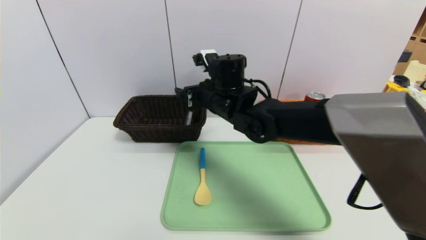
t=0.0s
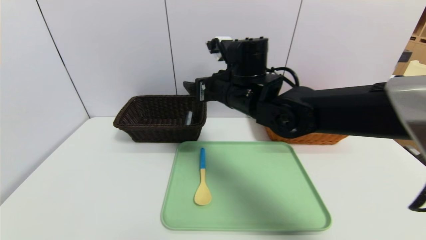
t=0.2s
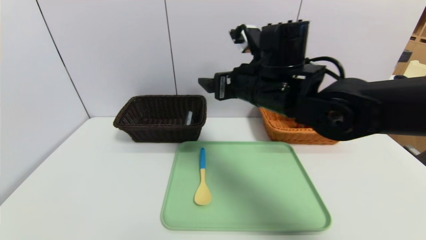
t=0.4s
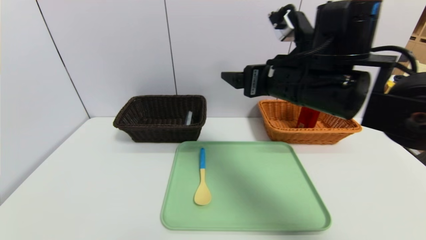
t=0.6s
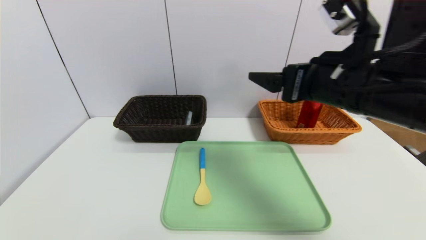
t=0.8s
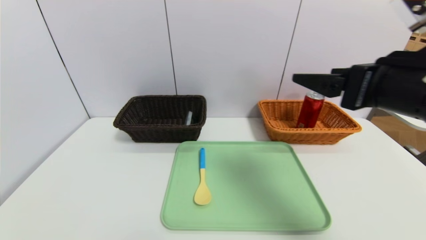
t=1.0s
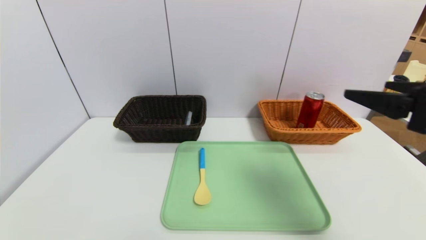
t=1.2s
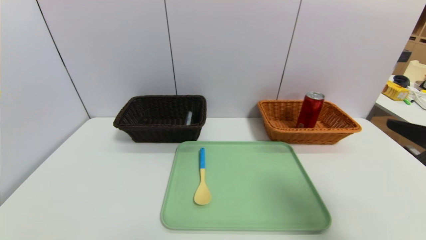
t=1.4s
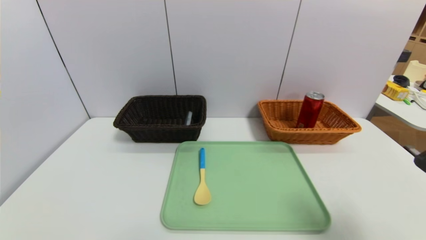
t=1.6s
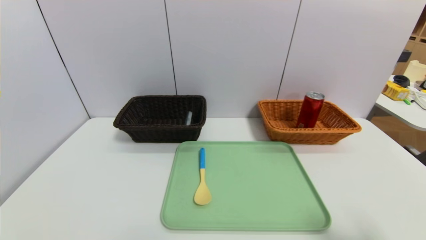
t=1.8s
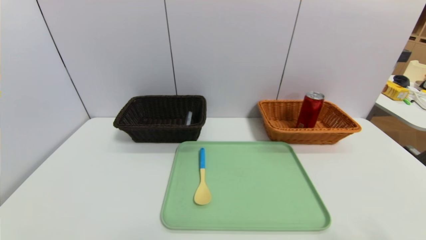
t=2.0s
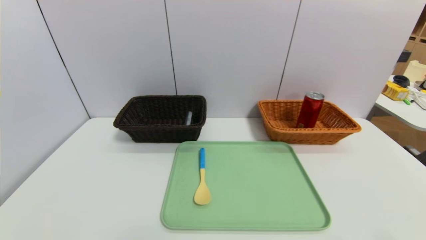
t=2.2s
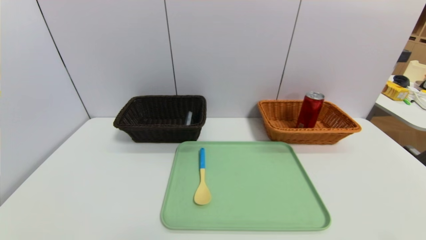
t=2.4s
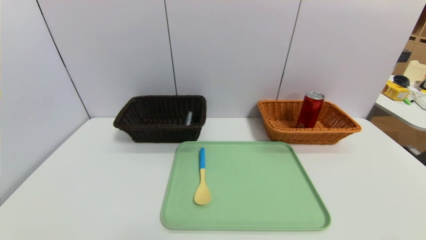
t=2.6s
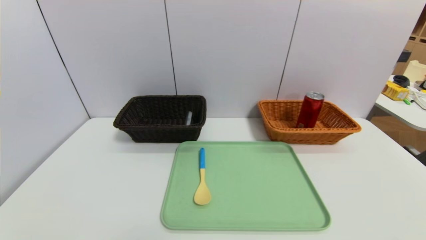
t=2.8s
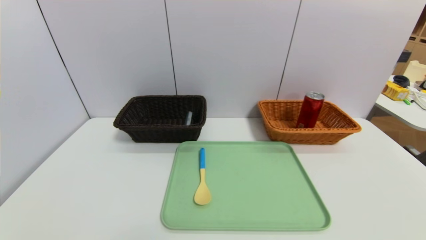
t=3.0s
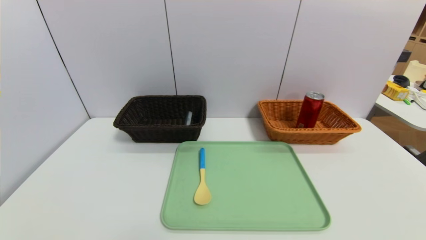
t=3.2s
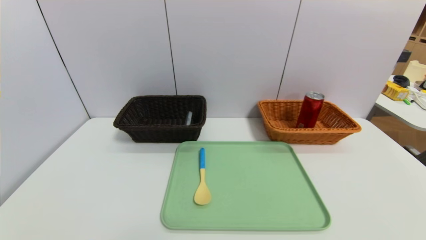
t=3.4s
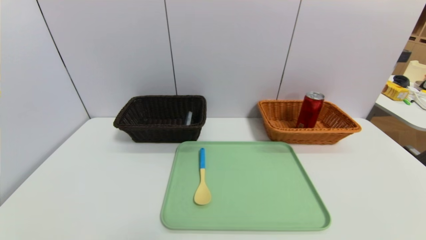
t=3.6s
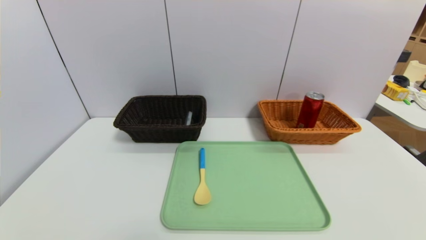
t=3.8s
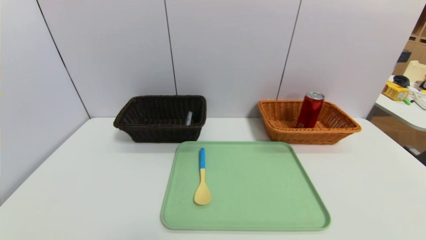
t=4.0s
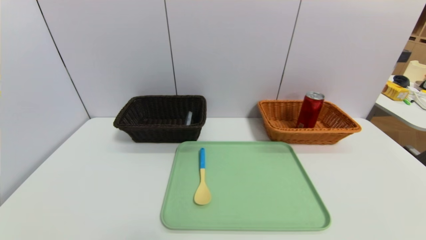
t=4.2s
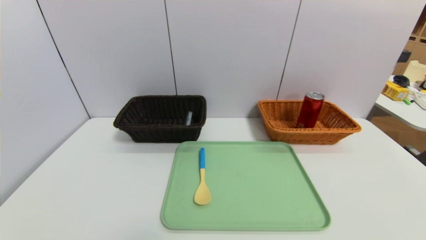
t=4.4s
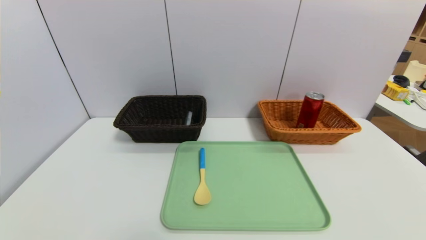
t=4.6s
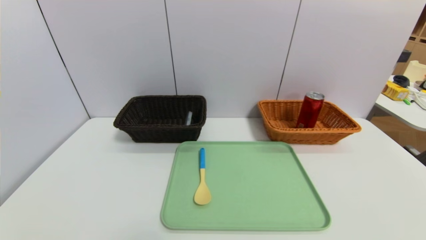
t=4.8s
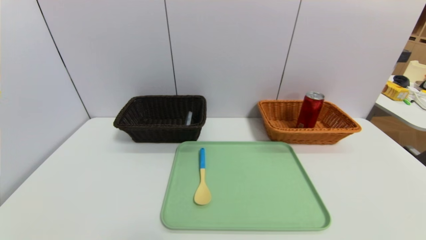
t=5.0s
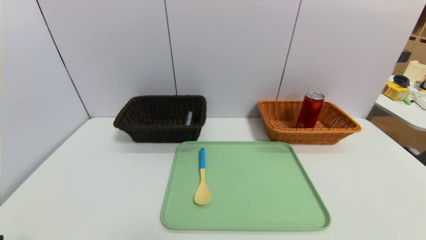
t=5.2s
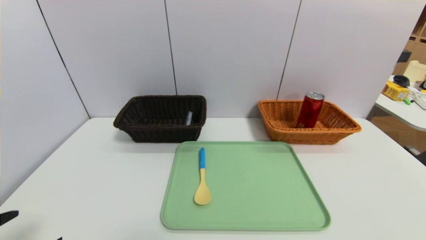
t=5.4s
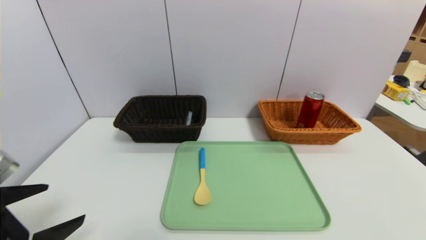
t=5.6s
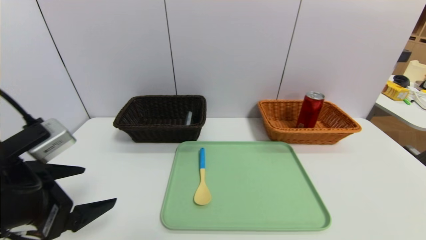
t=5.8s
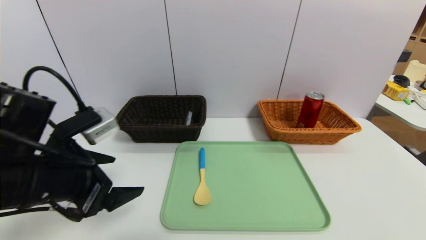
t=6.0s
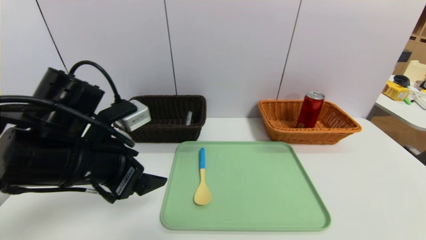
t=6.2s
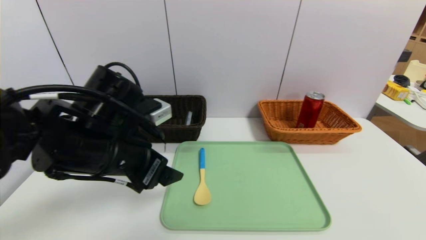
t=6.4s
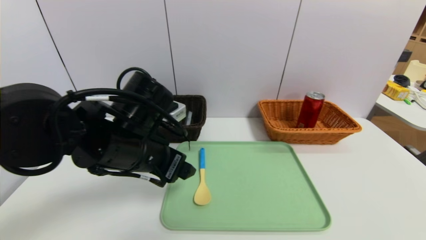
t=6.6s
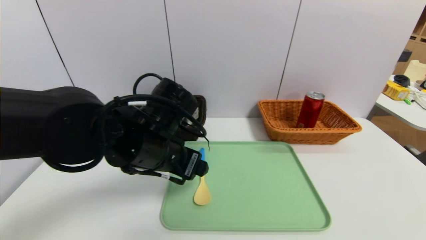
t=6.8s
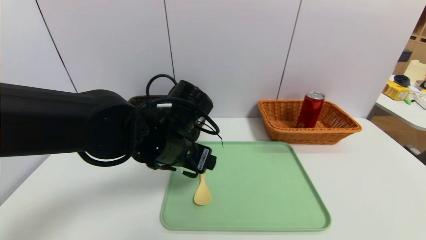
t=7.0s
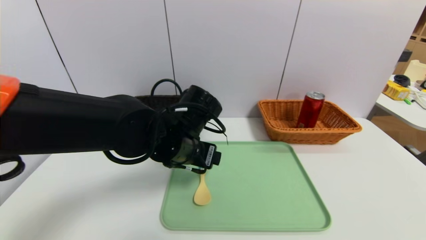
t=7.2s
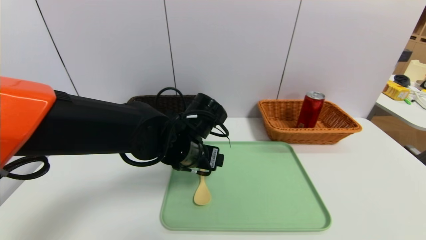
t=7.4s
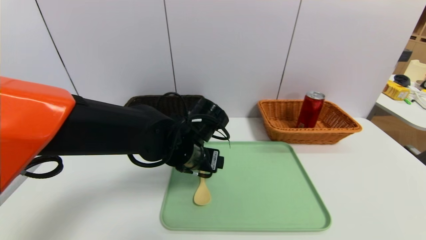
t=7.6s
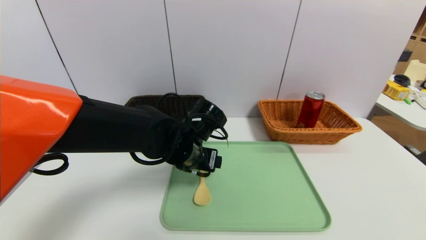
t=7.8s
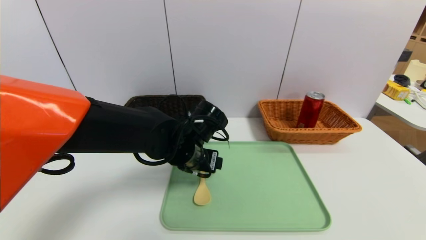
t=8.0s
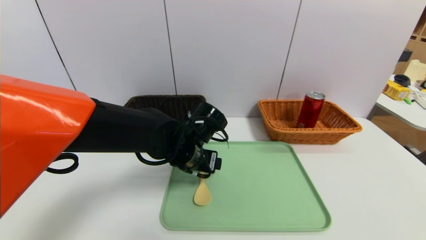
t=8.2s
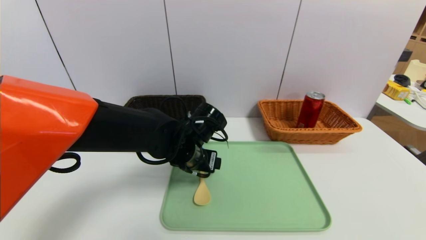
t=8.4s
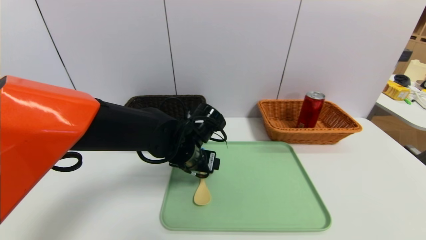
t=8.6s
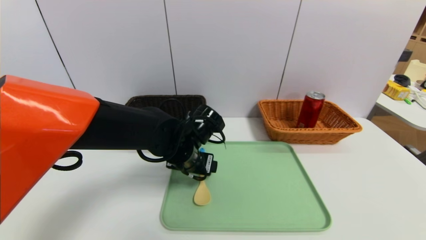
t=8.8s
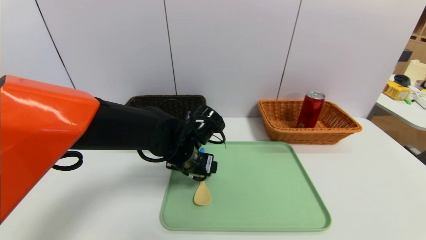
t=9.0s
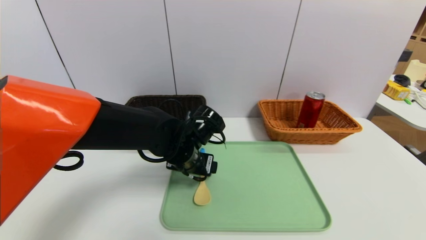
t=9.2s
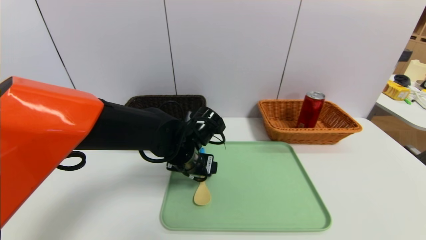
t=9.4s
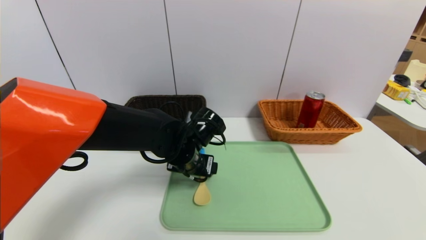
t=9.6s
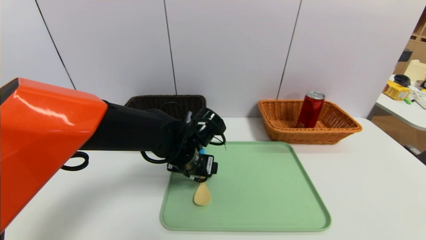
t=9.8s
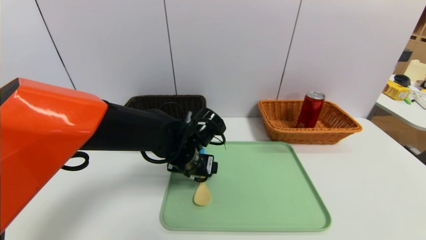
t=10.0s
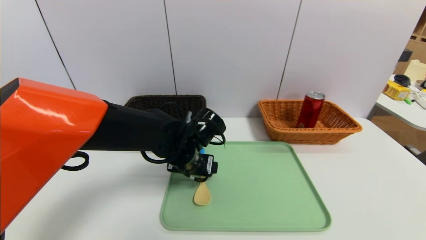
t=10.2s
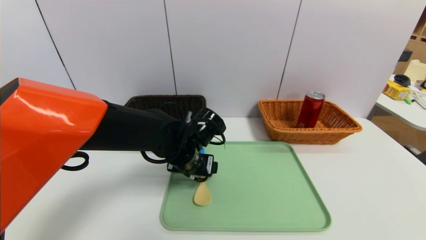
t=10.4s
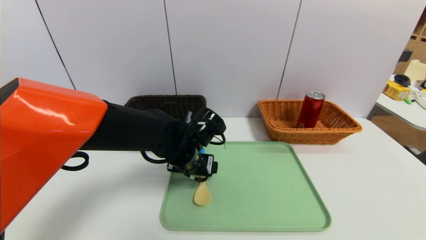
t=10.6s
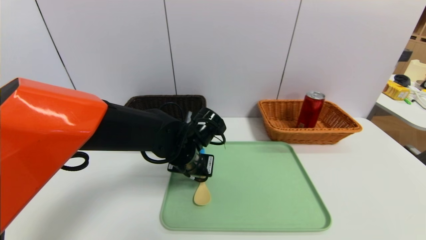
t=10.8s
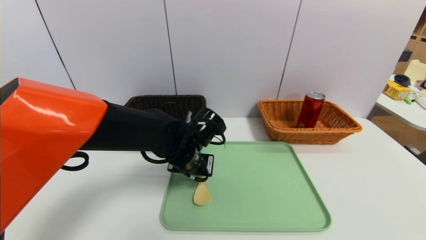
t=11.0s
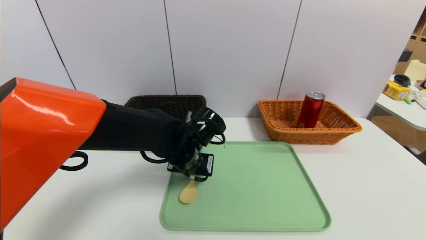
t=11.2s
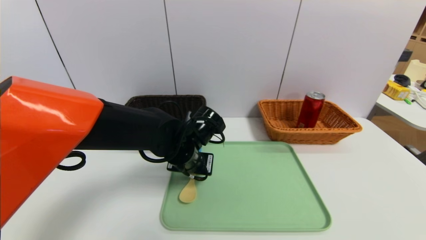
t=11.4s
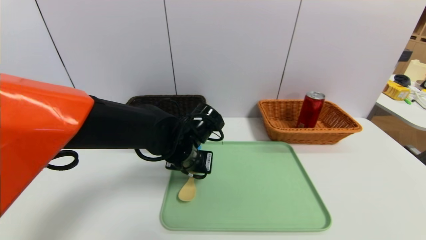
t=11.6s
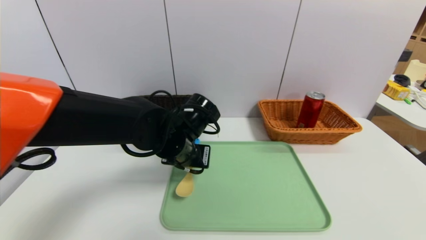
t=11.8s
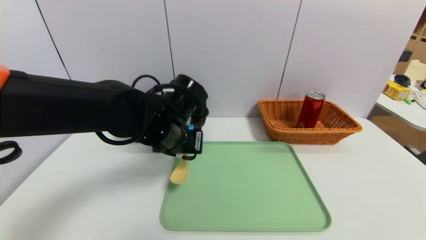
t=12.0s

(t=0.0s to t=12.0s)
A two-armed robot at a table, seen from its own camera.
Task of the whole recording: place the food in the right basket with the right gripper, and place the non food items in the left basket with the left gripper.
t=0.0s - t=1.6s: The right gripper heads to the right and backward, covering approximately 40 cm.
t=1.6s - t=3.0s: The right gripper moves downward and backward, roughly 15 cm.
t=4.4s - t=6.0s: The left gripper heads forward, upward and to the right, covering approximately 25 cm.
t=6.0s - t=7.6s: The left gripper is displaced to the right and forward by about 20 cm.
t=7.6s - t=9.0s: The grippers stay close to where they were, moving slightly.
t=9.0s - t=10.4s: Neither gripper changes place.
t=10.4s - t=12.0s: The left gripper travels upward by roughly 5 cm, and closes up.

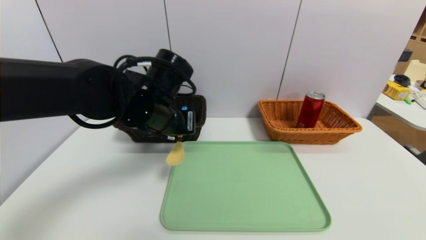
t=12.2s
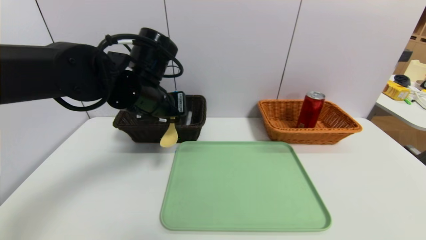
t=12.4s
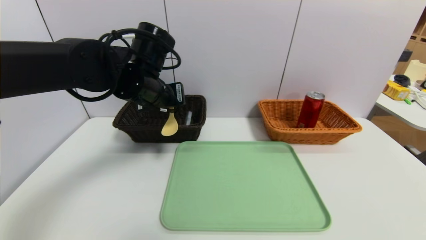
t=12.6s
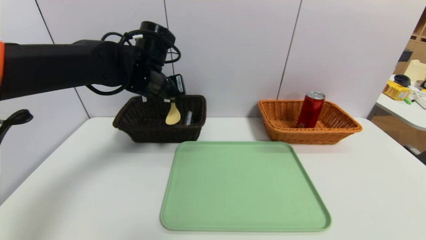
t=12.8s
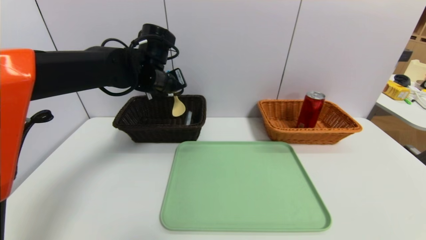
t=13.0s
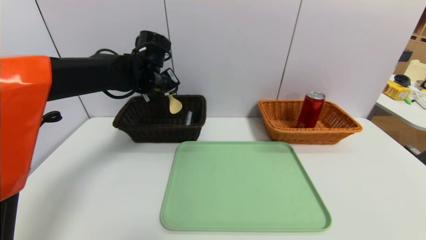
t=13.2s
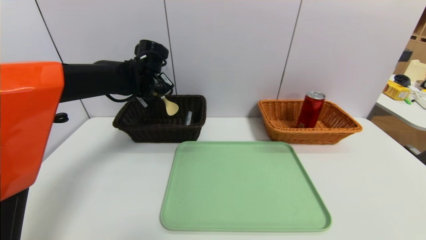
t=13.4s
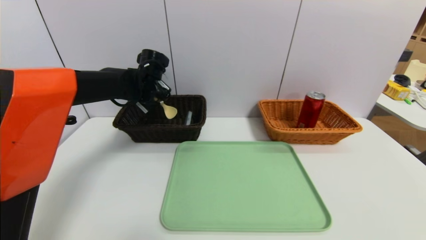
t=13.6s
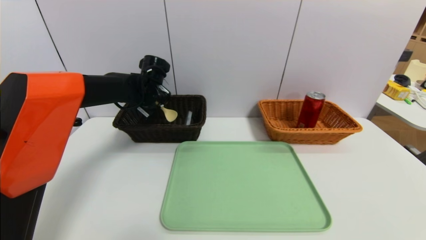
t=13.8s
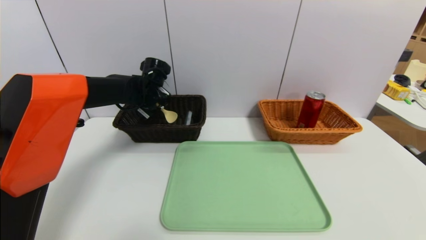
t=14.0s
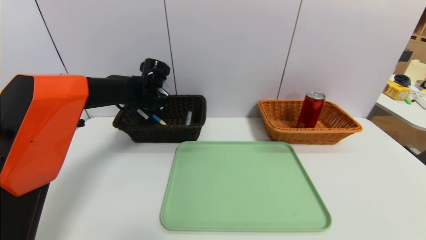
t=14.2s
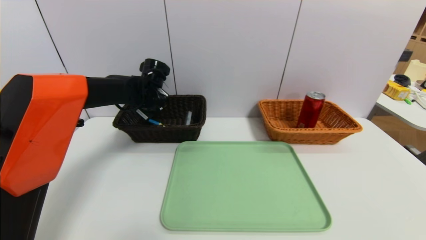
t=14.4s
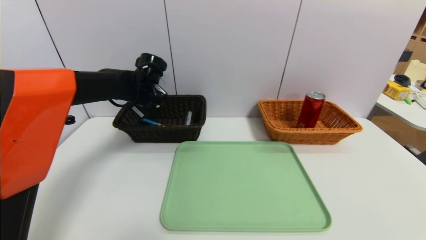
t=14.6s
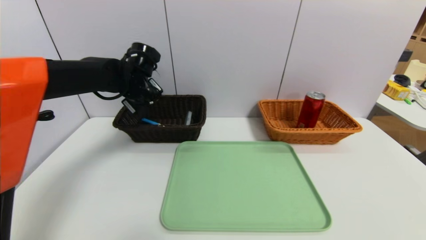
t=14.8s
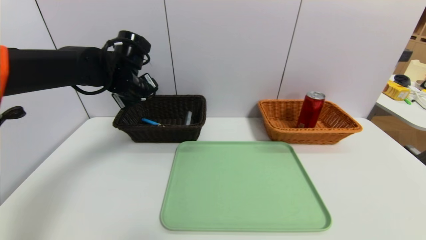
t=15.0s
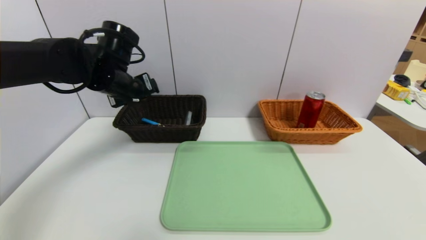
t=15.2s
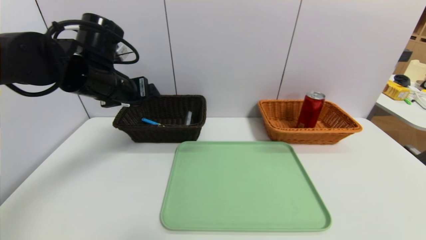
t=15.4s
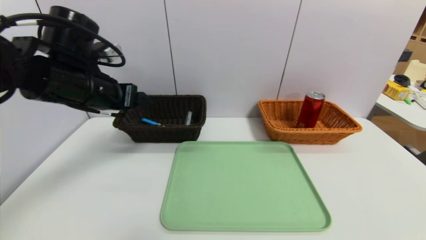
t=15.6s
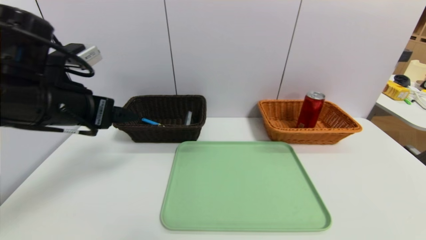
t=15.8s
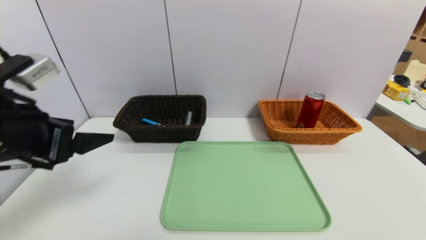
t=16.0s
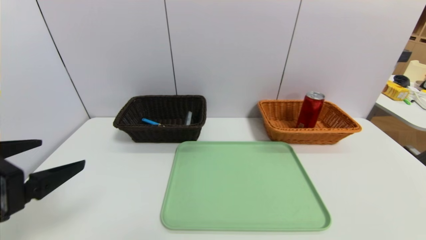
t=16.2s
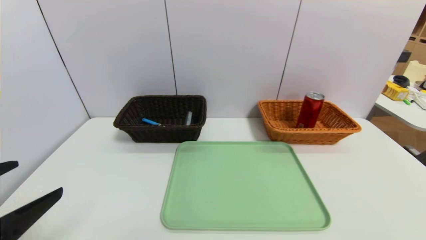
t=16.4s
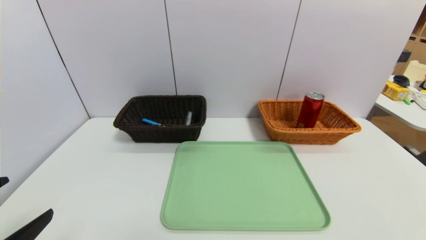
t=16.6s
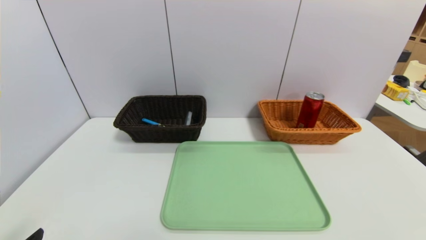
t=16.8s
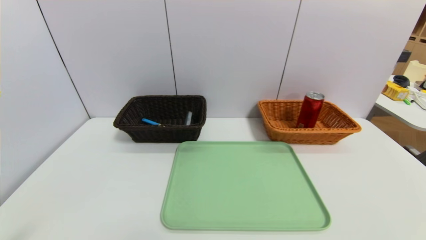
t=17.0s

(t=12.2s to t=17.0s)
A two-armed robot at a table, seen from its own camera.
Task of the whole recording: place the food in the right basket with the right gripper, and place the non food items in the left basket with the left gripper.
Step, t=12.2s - t=14.6s: Grasp the spoon and put it in the left basket.
t=12.2s - t=13.8s: The left gripper shifts approximately 15 cm forward.
t=13.8s - t=15.4s: The left gripper is displaced backward and upward by approximately 15 cm, and opens its fingers.
t=15.4s - t=17.0s: The left gripper is displaced backward and downward by roughly 35 cm.
